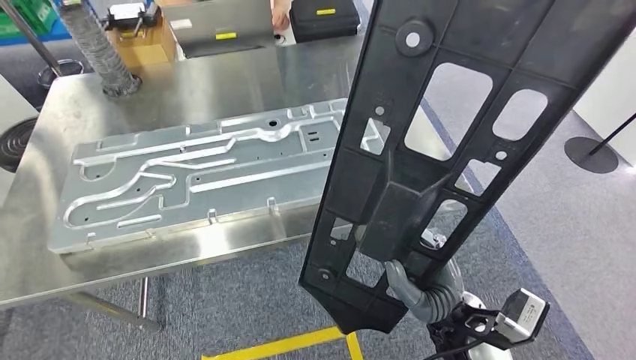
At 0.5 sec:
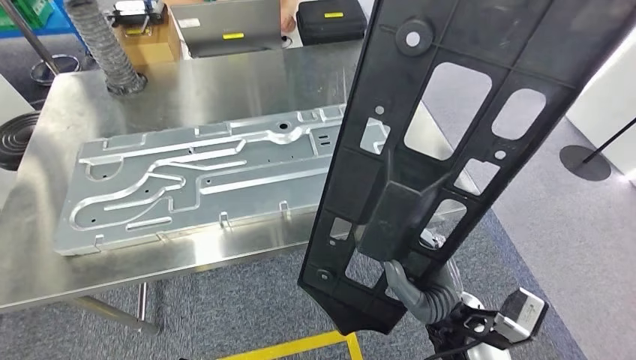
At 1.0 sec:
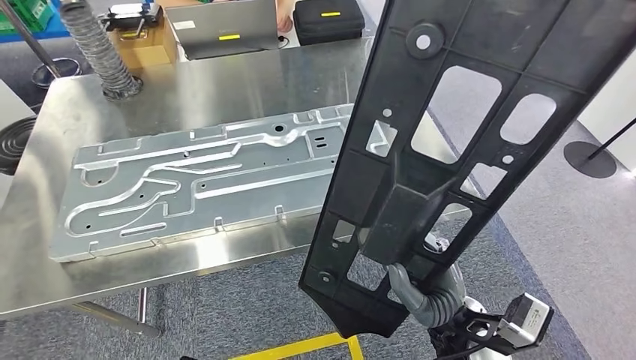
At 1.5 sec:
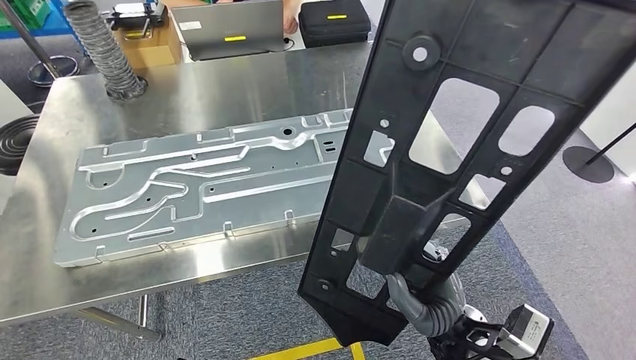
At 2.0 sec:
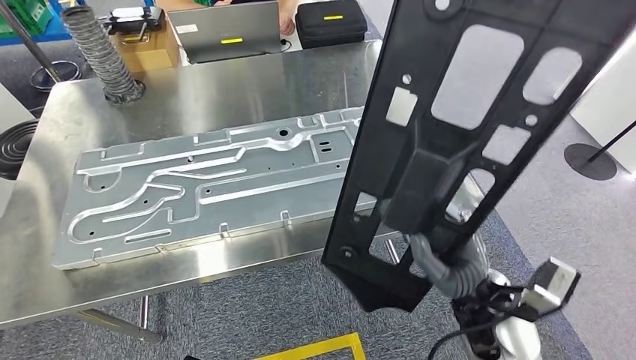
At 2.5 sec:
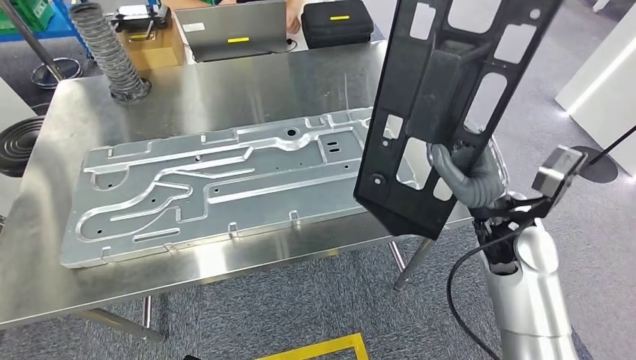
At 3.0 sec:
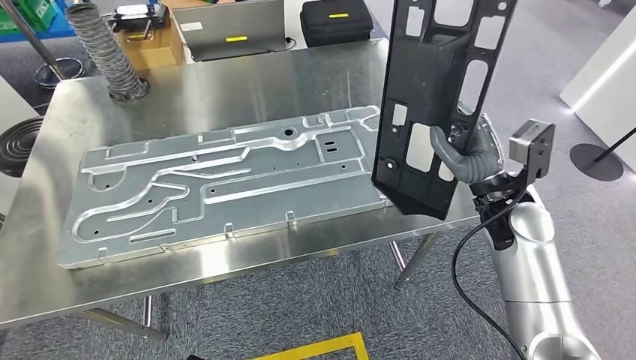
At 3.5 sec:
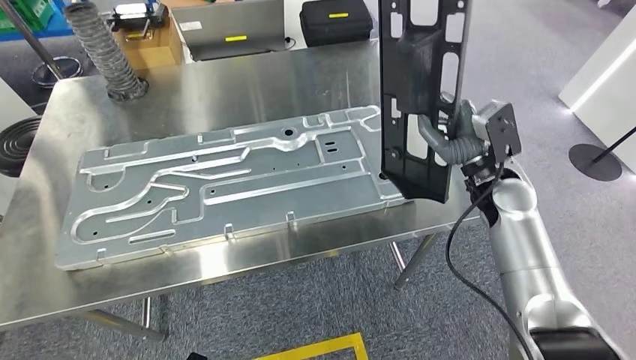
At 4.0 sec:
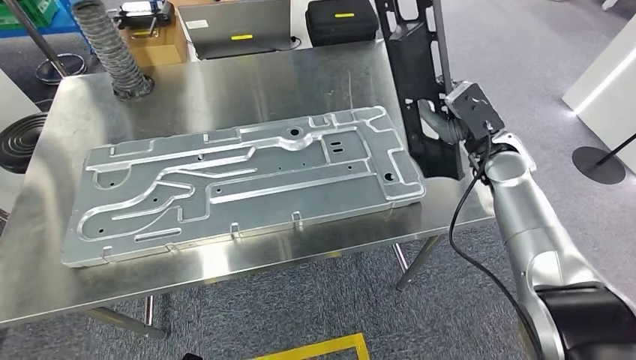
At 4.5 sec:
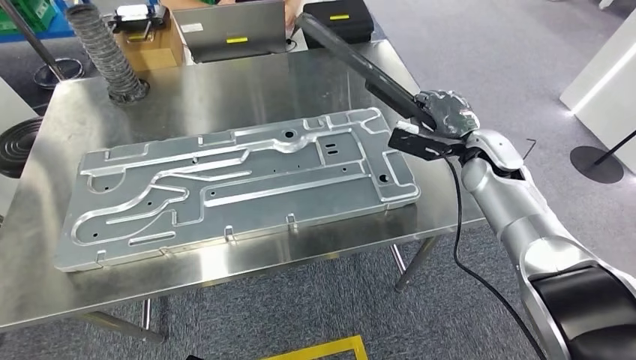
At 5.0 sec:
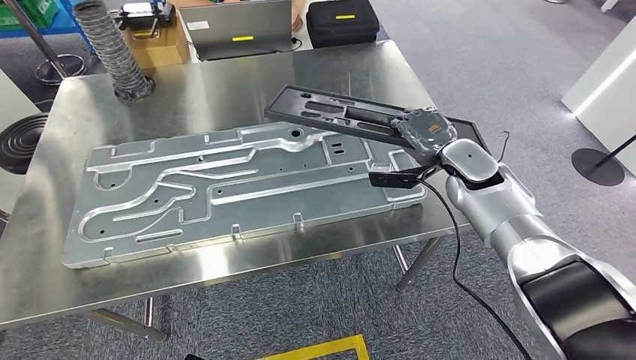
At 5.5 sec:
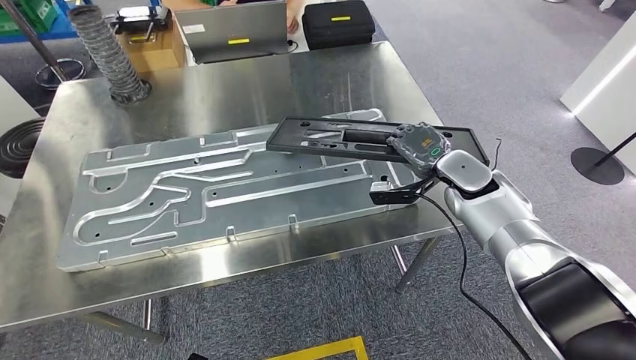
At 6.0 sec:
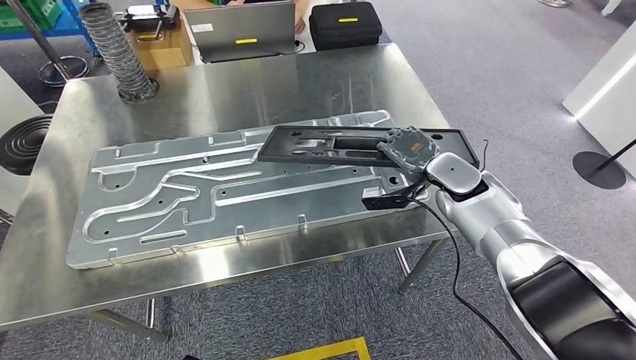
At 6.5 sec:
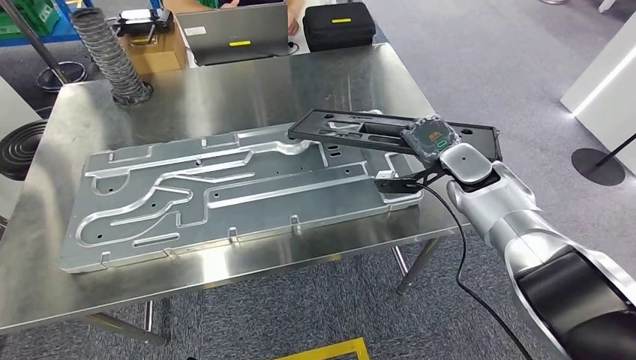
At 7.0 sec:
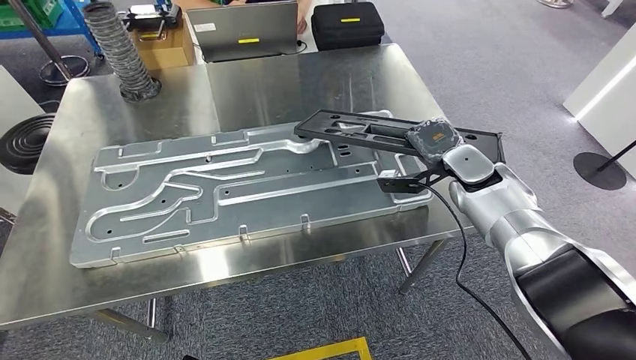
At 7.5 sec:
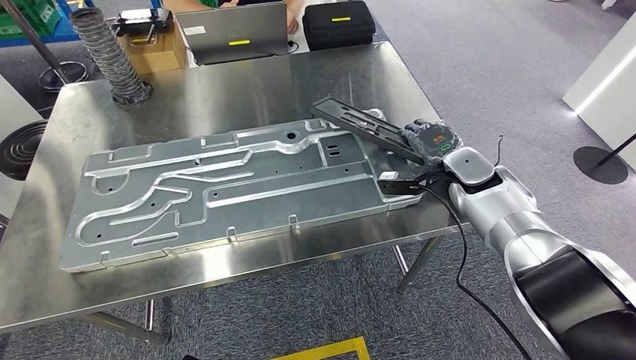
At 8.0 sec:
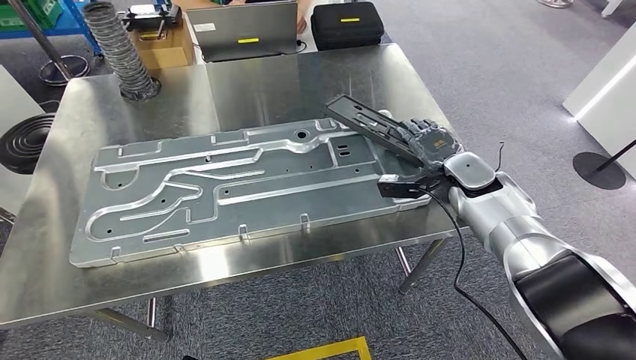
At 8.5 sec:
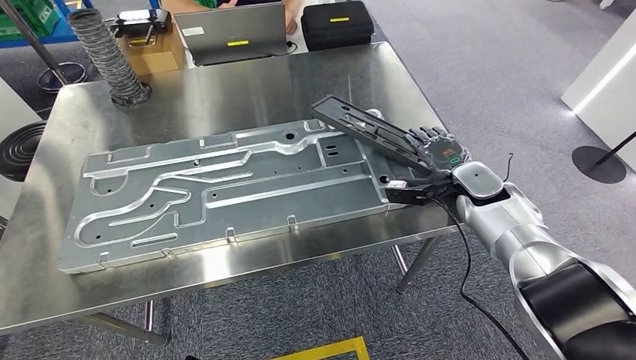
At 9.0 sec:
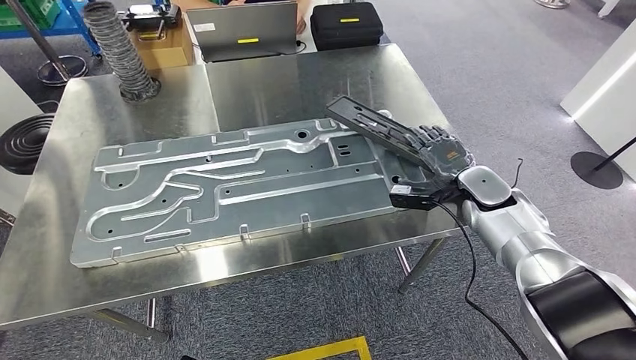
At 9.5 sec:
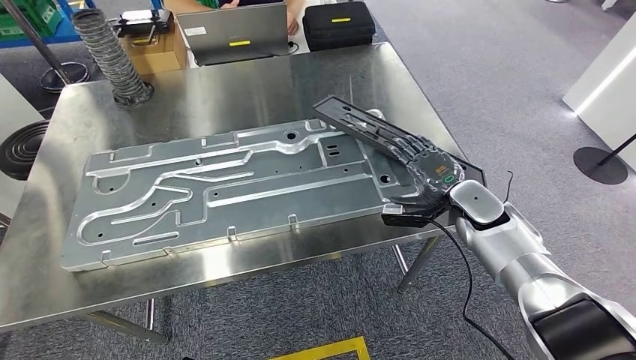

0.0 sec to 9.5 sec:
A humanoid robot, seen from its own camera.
Step, 0.0 sec to 8.0 sec: Insert the large material into the corresponding hole on the workbench.
5.5 sec to 7.5 sec: The hands make only small movements.
7.5 sec to 9.5 sec: The right hand changes place by approximately 5 cm.

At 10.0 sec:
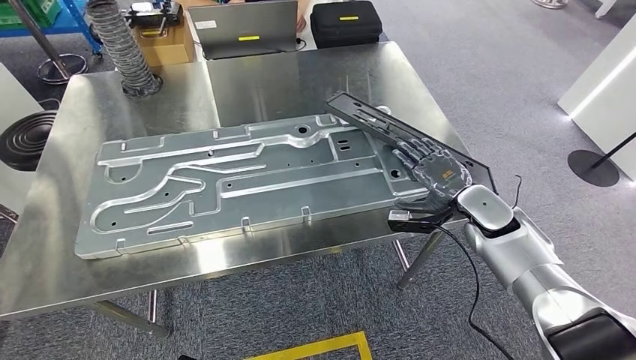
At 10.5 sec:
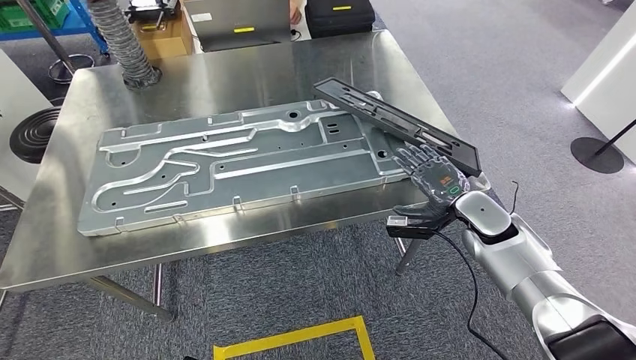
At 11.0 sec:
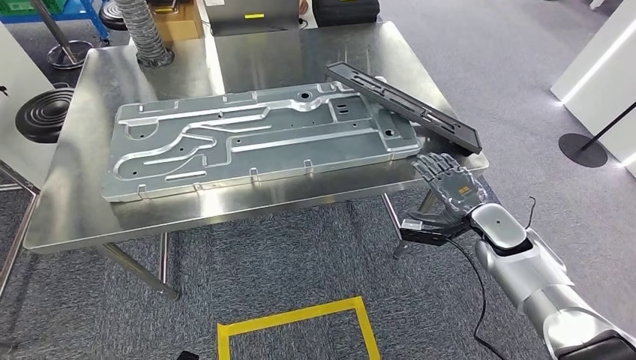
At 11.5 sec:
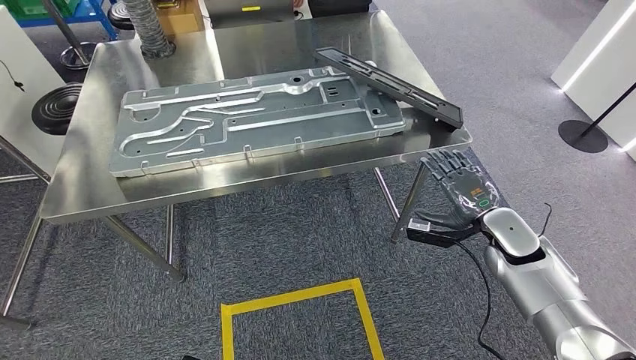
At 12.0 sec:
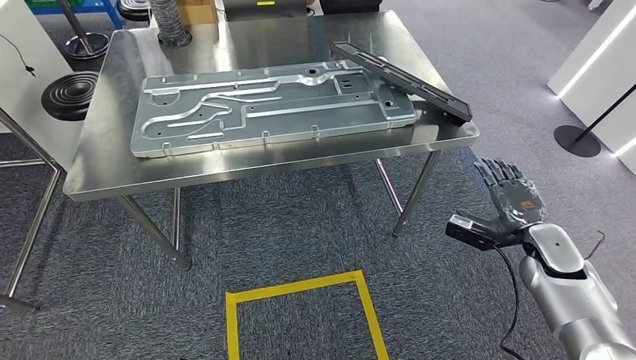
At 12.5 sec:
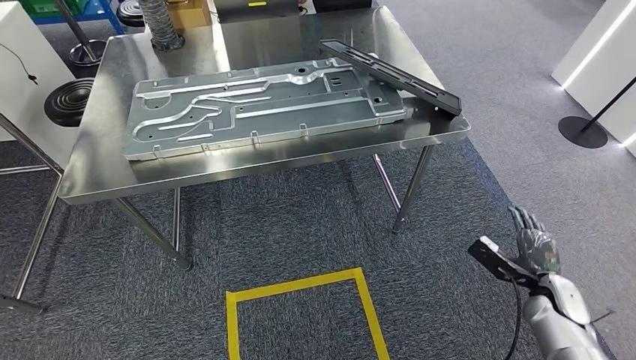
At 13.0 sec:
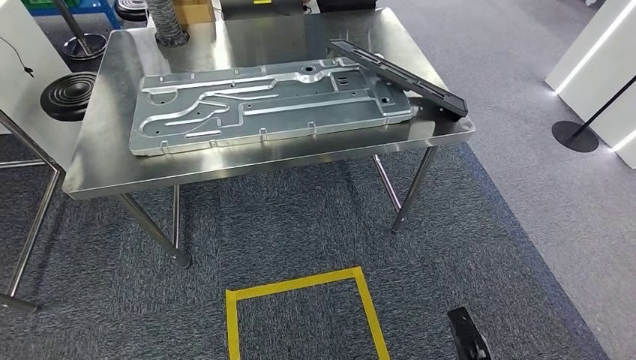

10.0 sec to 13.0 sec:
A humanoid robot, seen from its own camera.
Step, 10.0 sec to 13.0 sec: Move to the initial position of the shelf.
